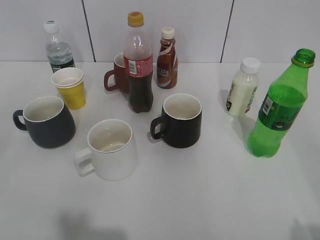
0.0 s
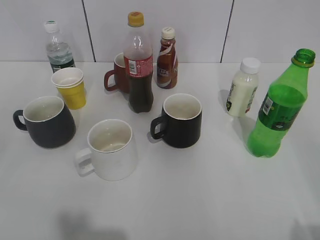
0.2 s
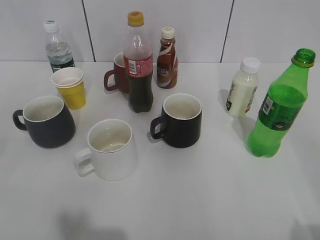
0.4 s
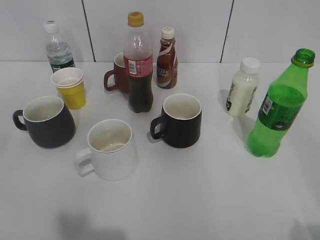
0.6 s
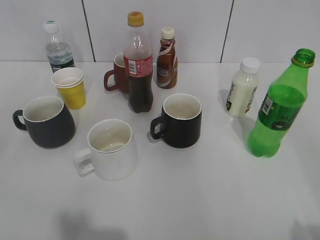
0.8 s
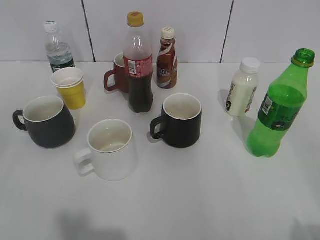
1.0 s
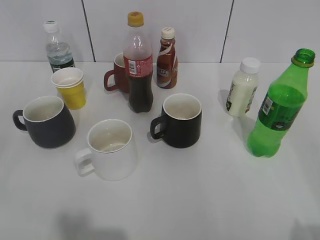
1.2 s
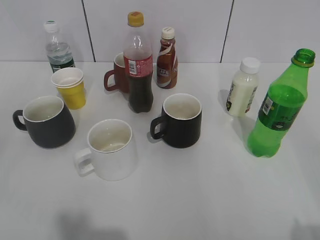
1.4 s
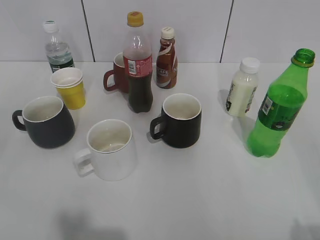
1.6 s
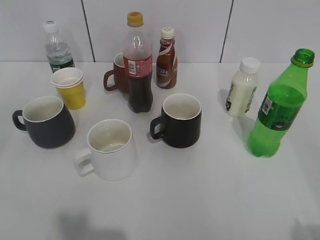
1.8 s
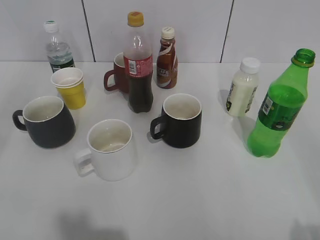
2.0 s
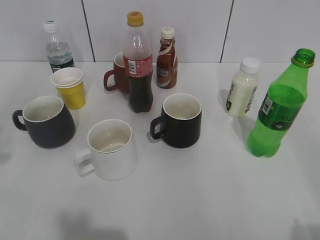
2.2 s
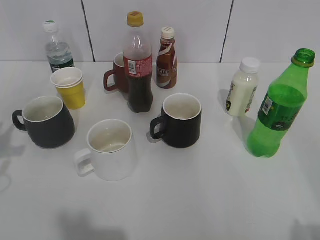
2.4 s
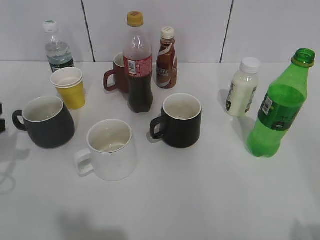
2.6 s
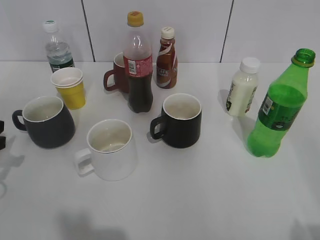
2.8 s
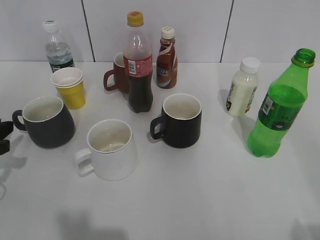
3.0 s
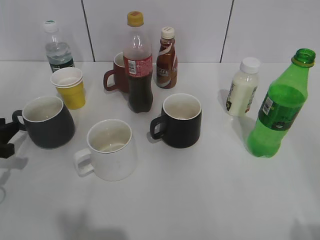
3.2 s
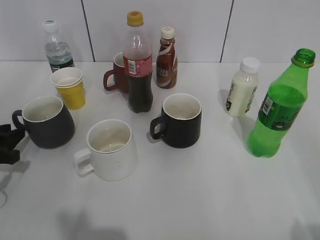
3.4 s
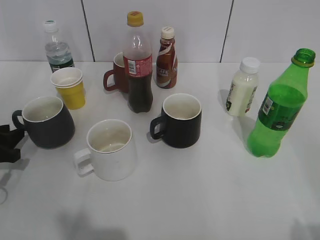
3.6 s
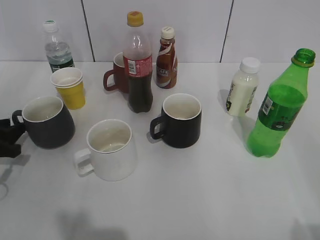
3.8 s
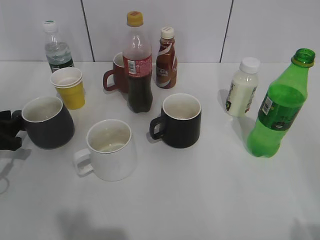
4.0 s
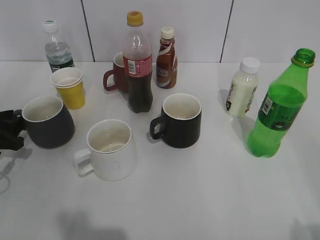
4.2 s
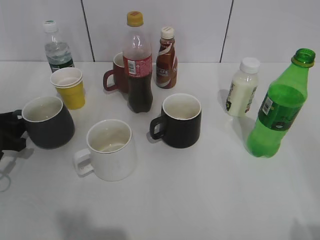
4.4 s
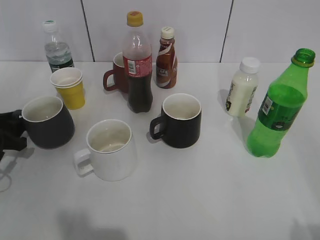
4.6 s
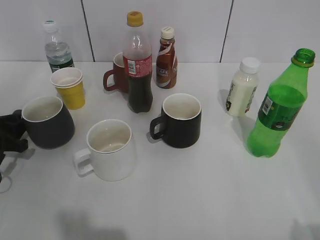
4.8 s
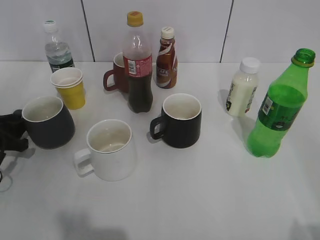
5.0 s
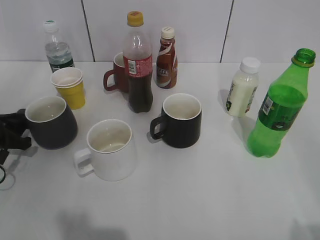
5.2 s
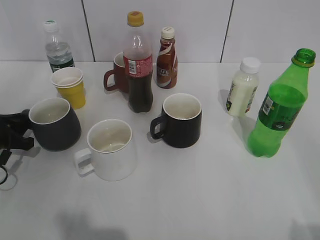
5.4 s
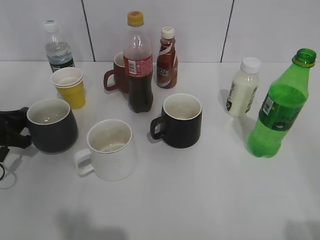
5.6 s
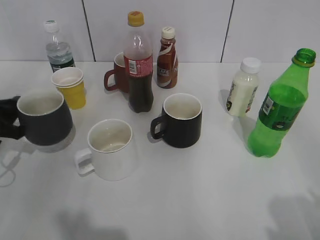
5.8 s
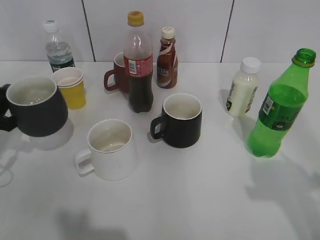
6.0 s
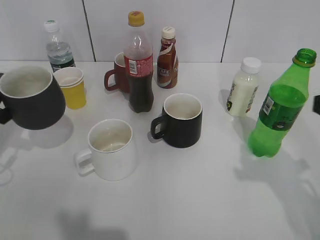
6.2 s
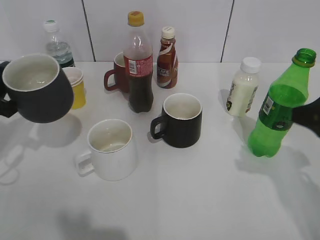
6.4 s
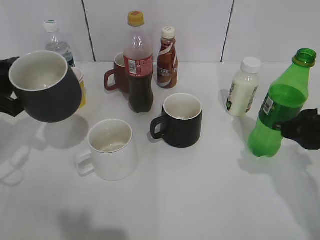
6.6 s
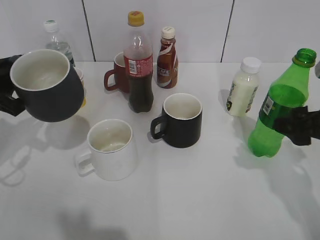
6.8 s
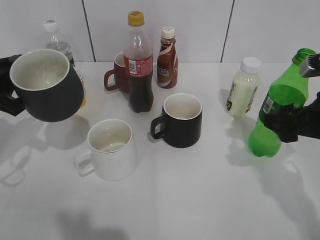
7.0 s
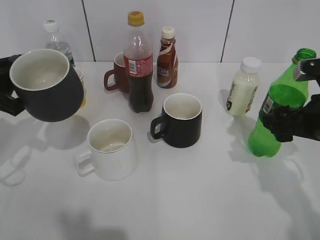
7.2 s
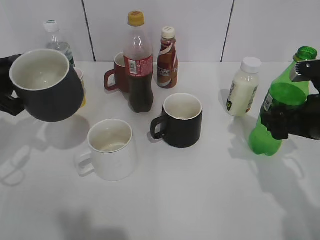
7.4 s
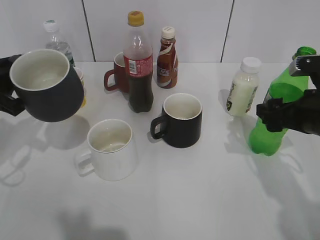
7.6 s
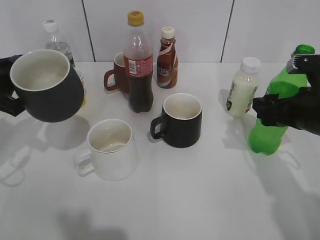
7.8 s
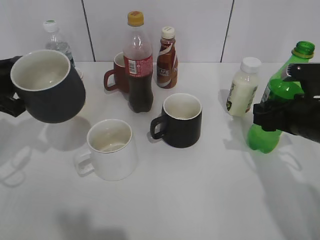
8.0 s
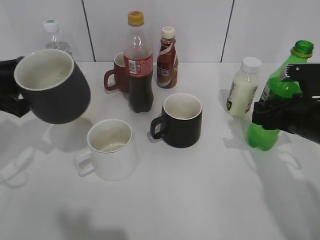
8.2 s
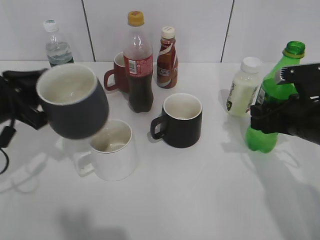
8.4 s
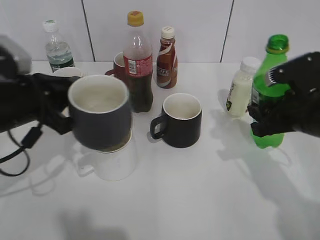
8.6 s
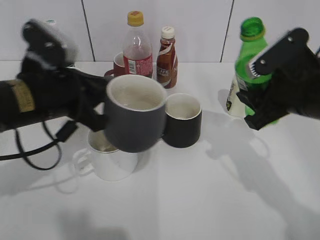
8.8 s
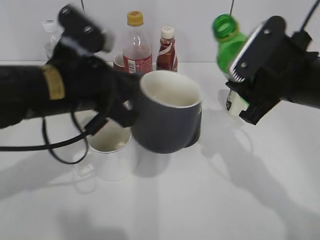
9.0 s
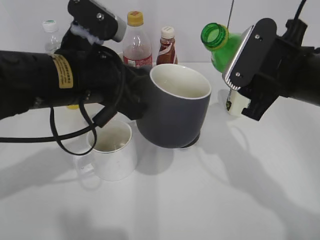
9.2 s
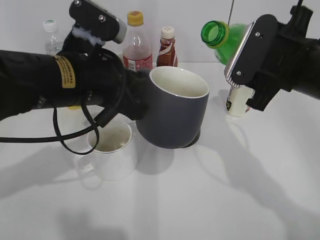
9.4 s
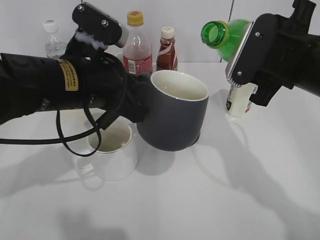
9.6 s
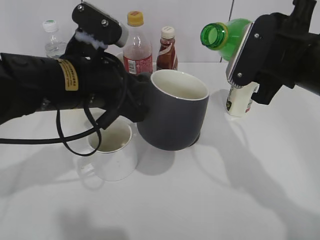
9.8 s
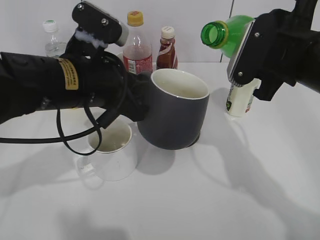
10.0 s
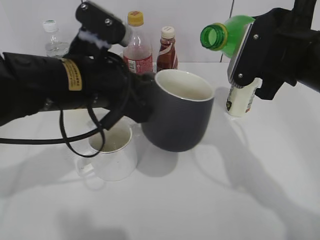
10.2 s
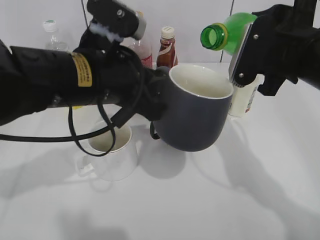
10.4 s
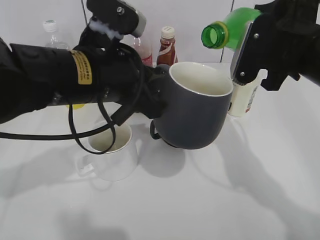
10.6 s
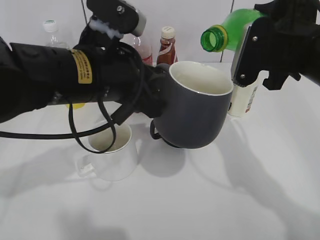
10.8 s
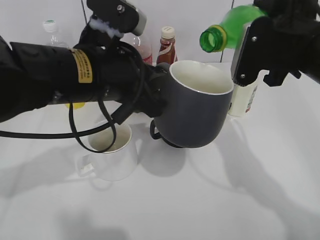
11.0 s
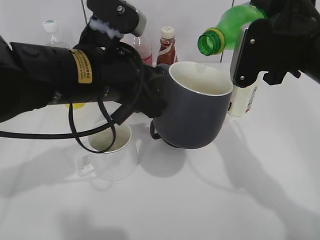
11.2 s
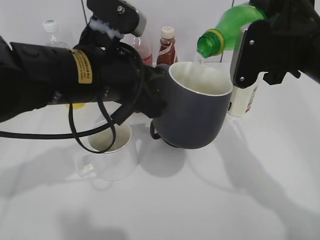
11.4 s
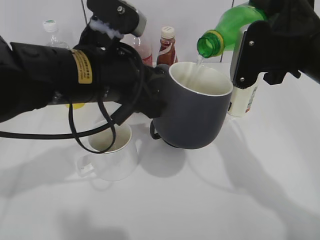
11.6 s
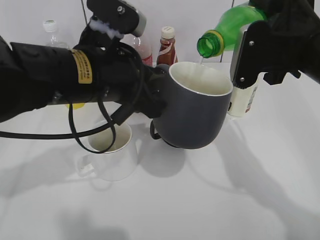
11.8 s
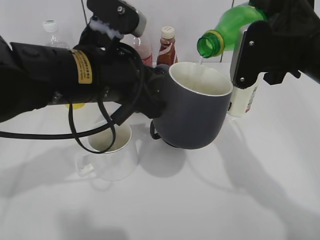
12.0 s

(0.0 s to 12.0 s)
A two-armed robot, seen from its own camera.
Step, 2.6 s - 5.2 s: Grasp the grey cup with left gripper.
Step, 5.4 s - 6.2 s: Lift the grey cup with left gripper.
Step, 6.6 s - 8.2 s: Grasp the bottle with sprite with right gripper.
1.6 s - 3.0 s: The left gripper shifts approximately 30 cm forward and downward.
3.0 s - 4.4 s: The left gripper shifts by about 5 cm.
4.4 s - 6.0 s: The right gripper heads forward, covering approximately 10 cm. The left gripper moves upward, approximately 5 cm, and closes.
6.0 s - 7.6 s: The left gripper goes approximately 5 cm upward, while the right gripper moves forward and downward, about 20 cm, and opens.
7.6 s - 9.0 s: The right gripper heads to the left and upward, covering about 10 cm, and closes up; the left gripper is displaced to the right by some 15 cm.
10.4 s - 12.0 s: The grippers make only small movements.

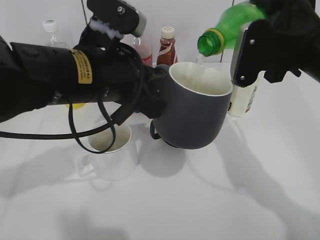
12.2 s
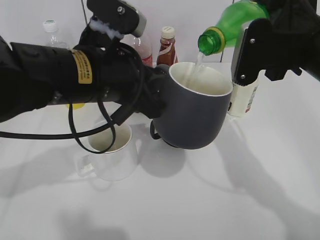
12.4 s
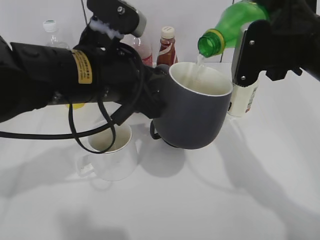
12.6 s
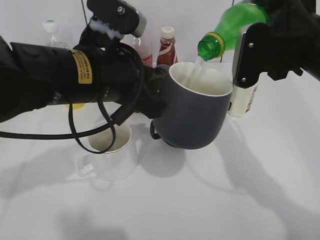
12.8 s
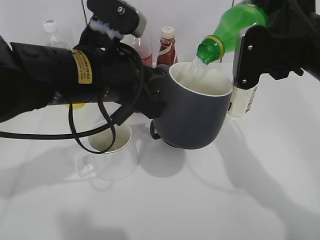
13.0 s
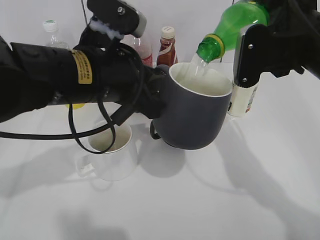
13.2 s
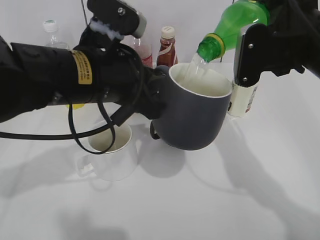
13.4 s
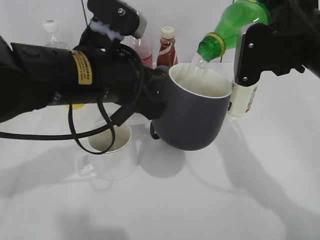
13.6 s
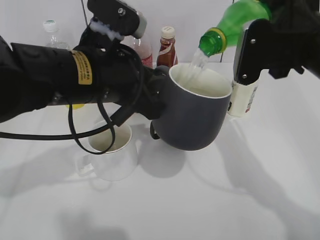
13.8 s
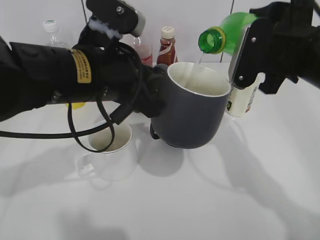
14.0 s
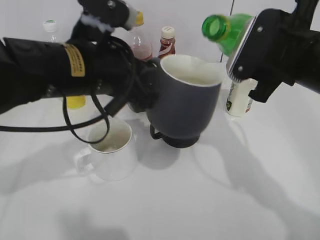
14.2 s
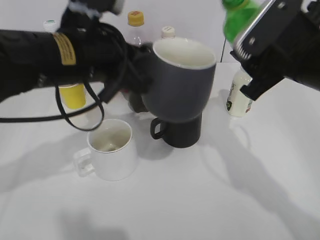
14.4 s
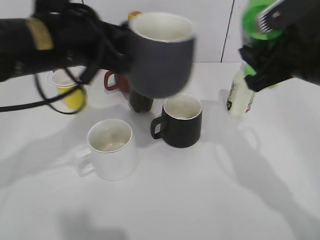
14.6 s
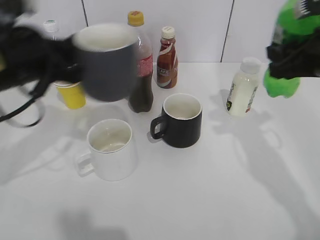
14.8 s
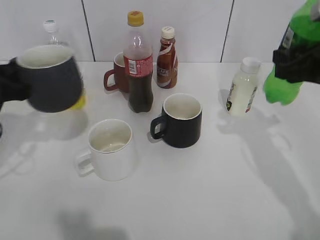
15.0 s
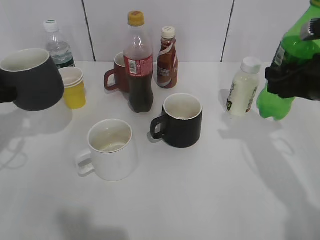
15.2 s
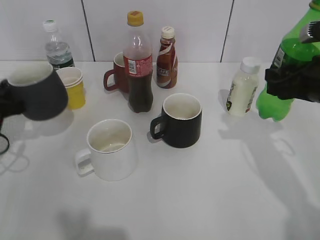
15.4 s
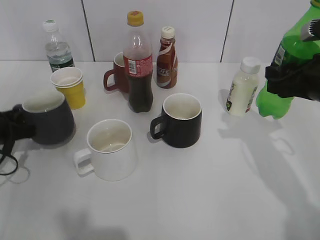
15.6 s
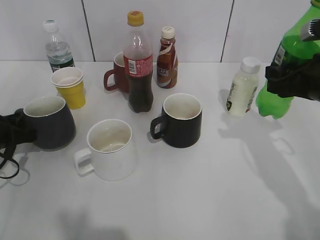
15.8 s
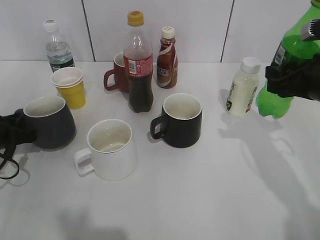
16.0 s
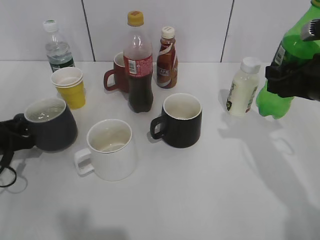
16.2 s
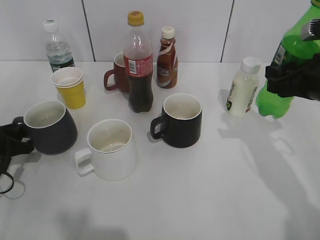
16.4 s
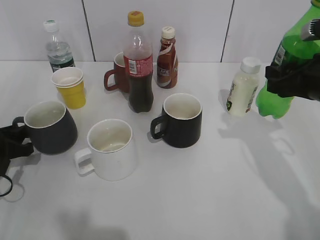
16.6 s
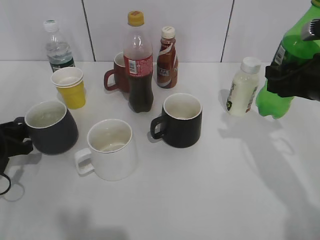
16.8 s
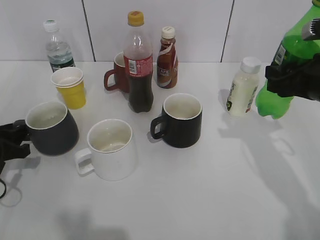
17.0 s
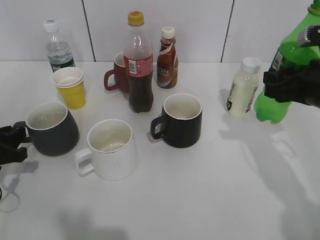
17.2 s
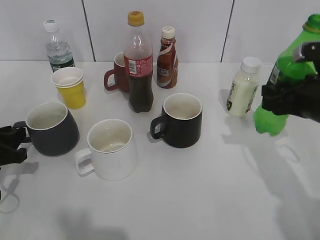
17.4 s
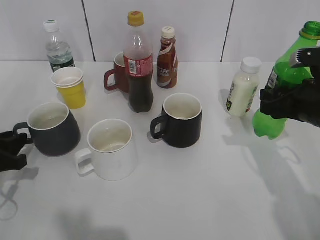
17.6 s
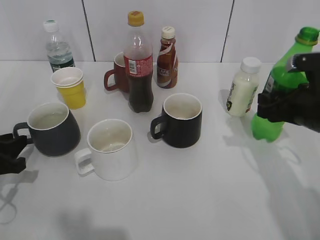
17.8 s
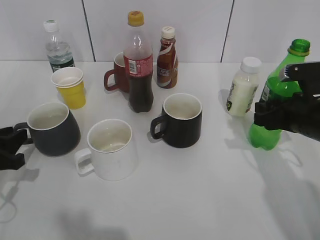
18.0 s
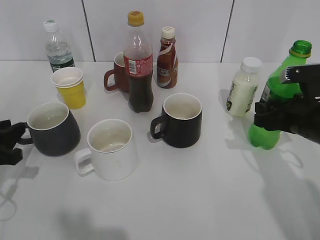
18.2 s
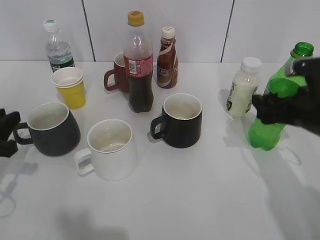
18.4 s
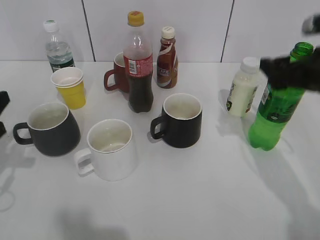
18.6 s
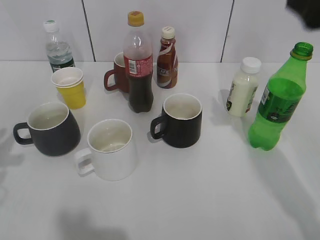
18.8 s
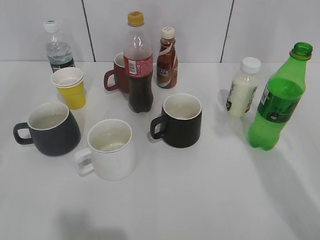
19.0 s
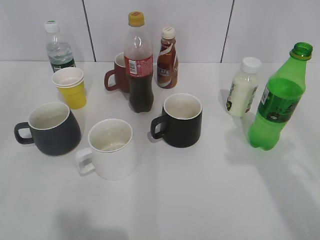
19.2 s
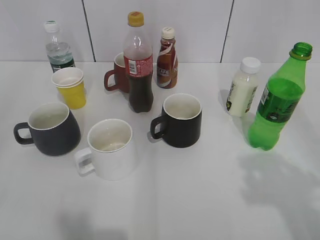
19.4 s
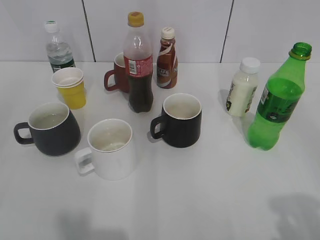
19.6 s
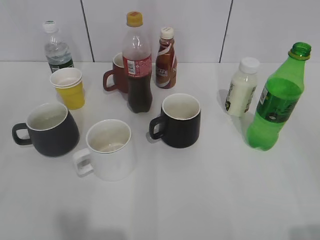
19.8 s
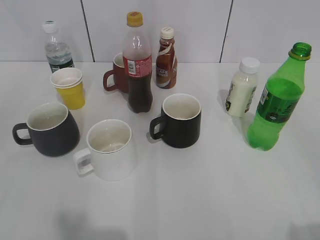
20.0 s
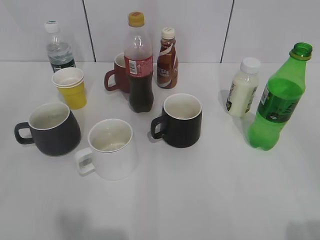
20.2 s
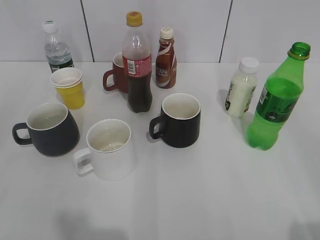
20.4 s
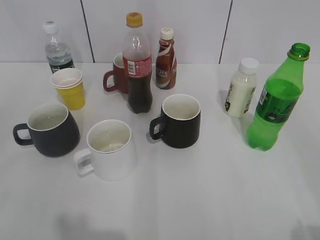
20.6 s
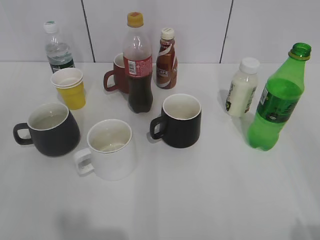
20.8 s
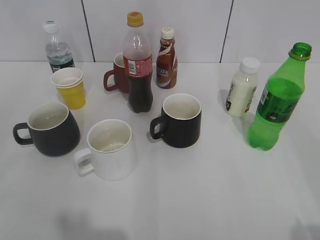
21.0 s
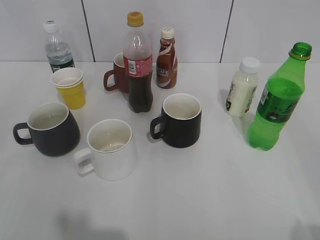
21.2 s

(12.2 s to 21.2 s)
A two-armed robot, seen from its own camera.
Step, 12.2 s - 14.2 s: Pour the sprite from bottle to cup with right gripper.
Step, 14.4 s - 17.0 s: Place the grey cup on the table with left gripper.
Step, 17.2 s - 18.4 s: Place the sprite bottle on the table with right gripper.
12.2 s - 13.8 s: There are only small adjustments of the grippers.
13.8 s - 15.2 s: The right gripper heads to the right and downward, covering some 10 cm; the left gripper heads to the left, covering approximately 25 cm.
15.2 s - 16.6 s: The left gripper goes about 10 cm downward, and opens its fingers.
16.6 s - 18.2 s: The left gripper moves about 5 cm, while the right gripper travels downward by roughly 5 cm.
18.2 s - 19.8 s: Both grippers move backward and upward, approximately 30 cm. The right gripper opens up; the left gripper opens up.
19.8 s - 21.2 s: The grippers move only a little.
